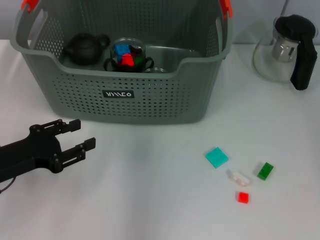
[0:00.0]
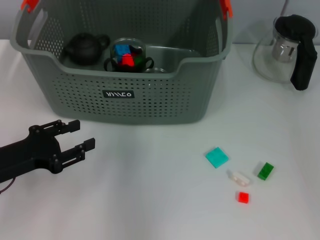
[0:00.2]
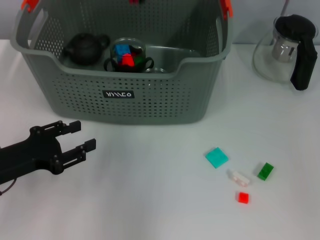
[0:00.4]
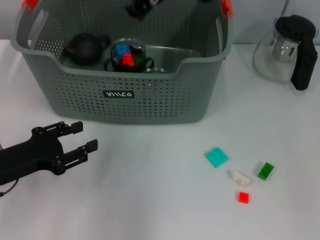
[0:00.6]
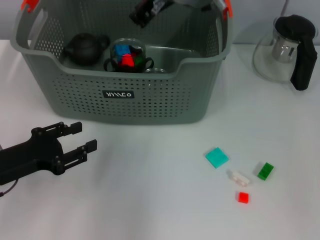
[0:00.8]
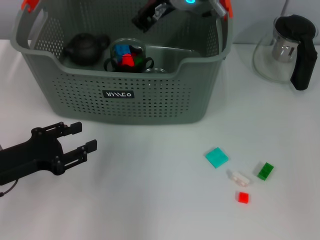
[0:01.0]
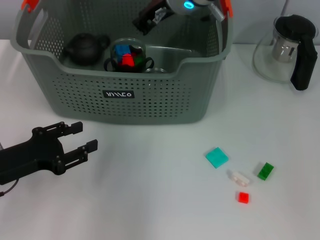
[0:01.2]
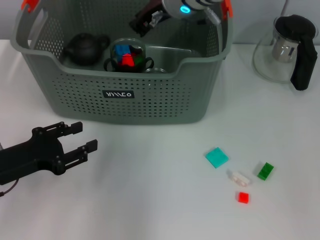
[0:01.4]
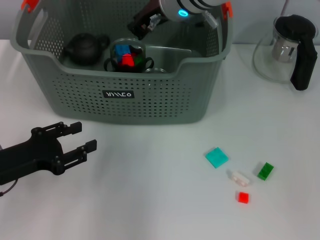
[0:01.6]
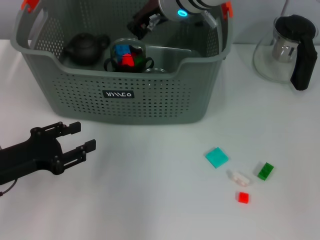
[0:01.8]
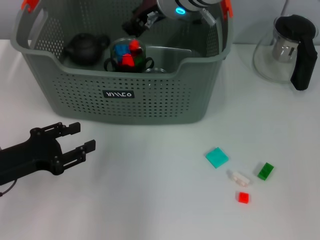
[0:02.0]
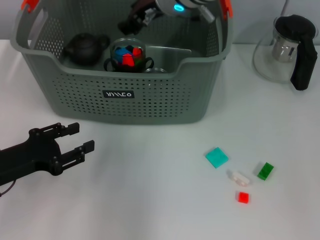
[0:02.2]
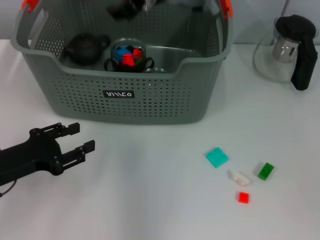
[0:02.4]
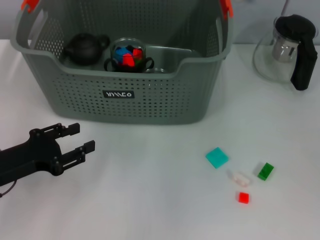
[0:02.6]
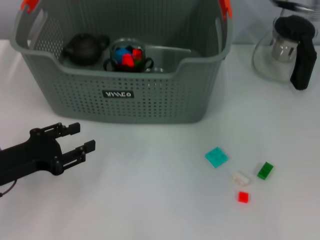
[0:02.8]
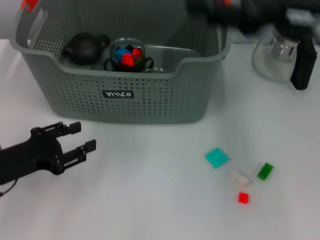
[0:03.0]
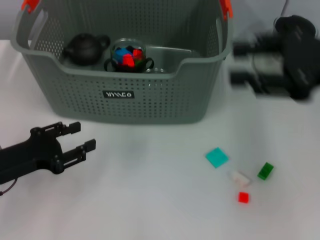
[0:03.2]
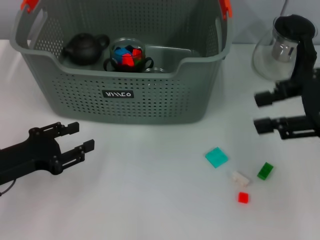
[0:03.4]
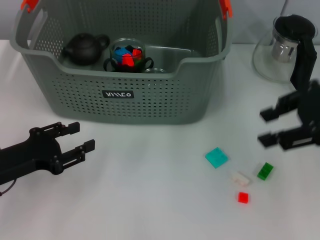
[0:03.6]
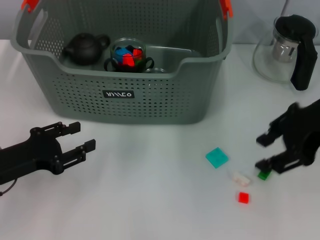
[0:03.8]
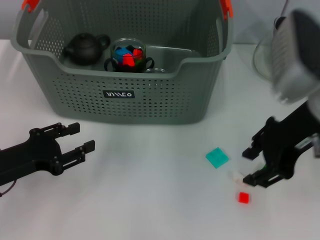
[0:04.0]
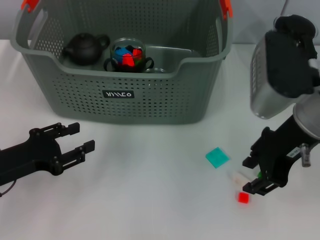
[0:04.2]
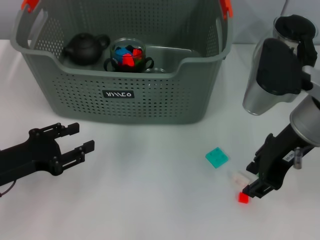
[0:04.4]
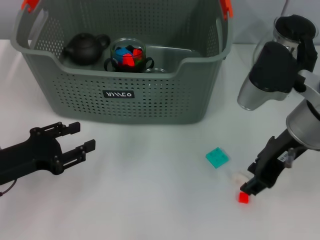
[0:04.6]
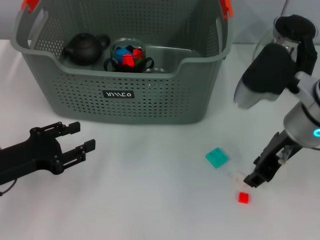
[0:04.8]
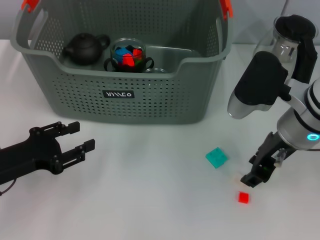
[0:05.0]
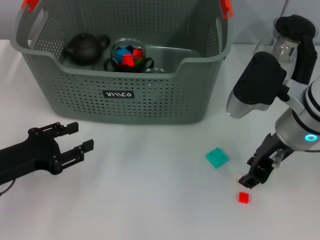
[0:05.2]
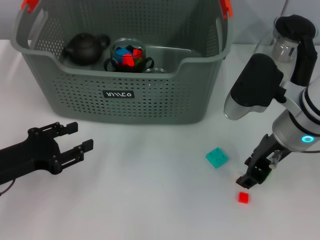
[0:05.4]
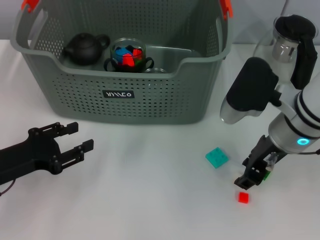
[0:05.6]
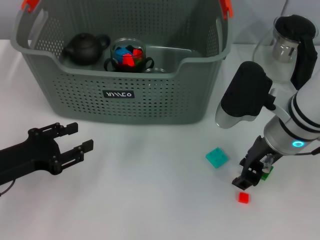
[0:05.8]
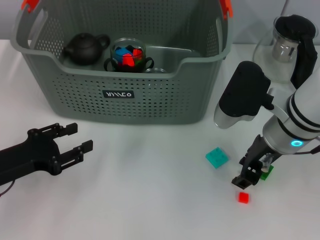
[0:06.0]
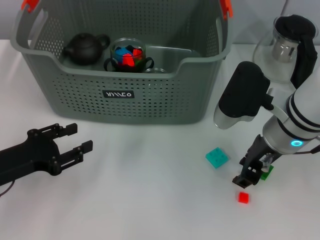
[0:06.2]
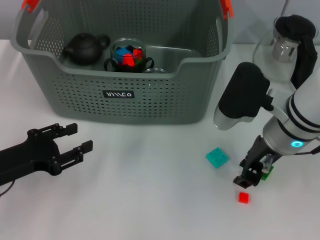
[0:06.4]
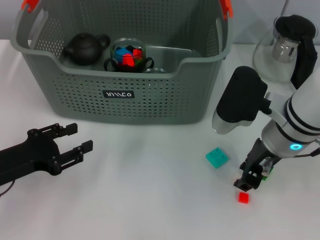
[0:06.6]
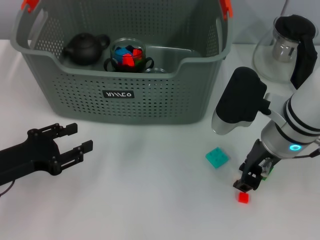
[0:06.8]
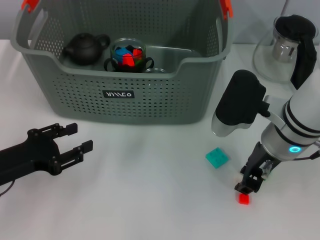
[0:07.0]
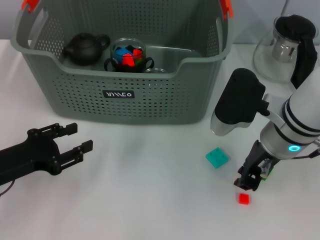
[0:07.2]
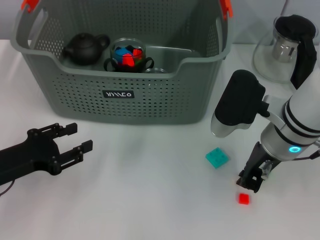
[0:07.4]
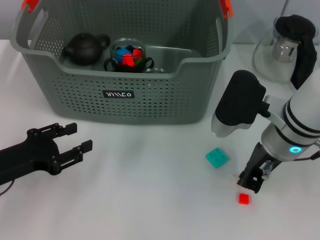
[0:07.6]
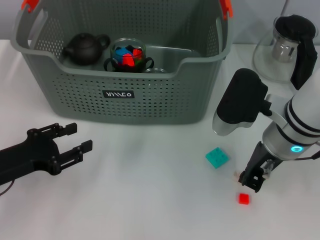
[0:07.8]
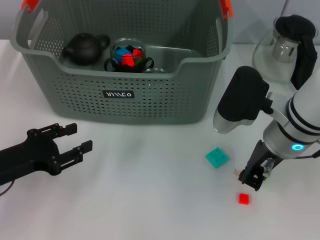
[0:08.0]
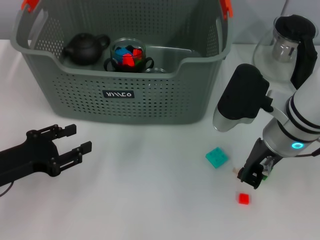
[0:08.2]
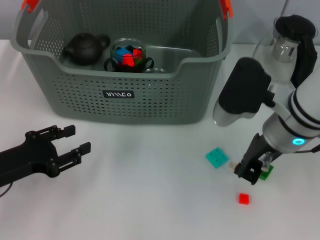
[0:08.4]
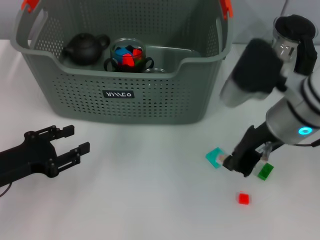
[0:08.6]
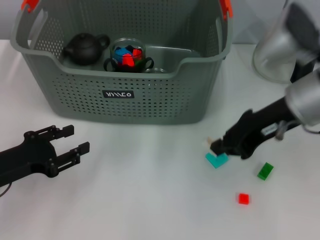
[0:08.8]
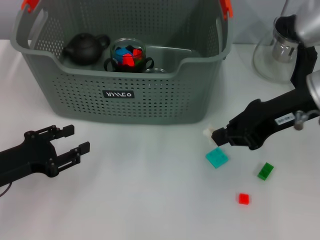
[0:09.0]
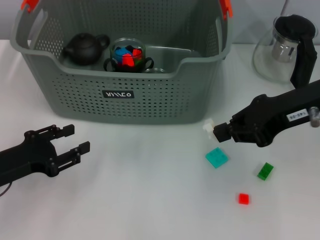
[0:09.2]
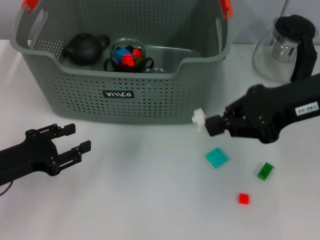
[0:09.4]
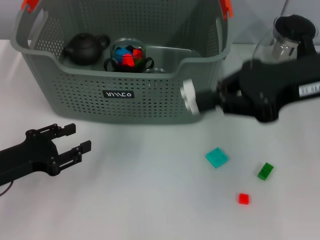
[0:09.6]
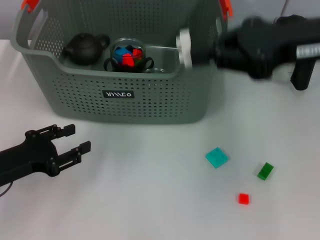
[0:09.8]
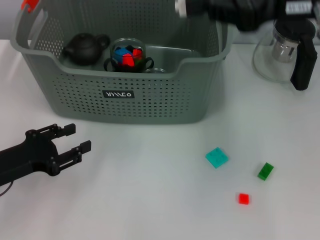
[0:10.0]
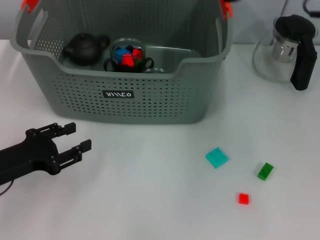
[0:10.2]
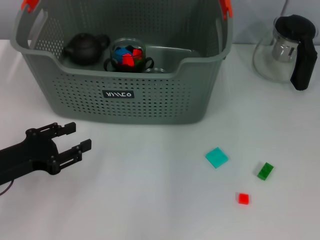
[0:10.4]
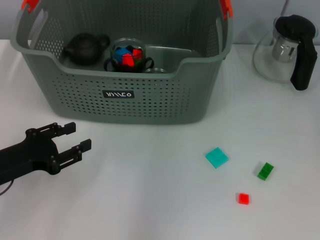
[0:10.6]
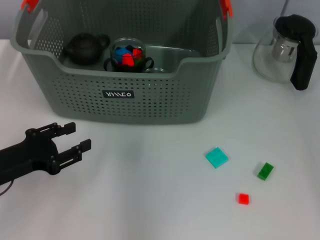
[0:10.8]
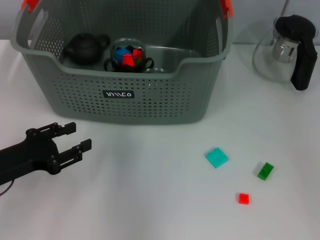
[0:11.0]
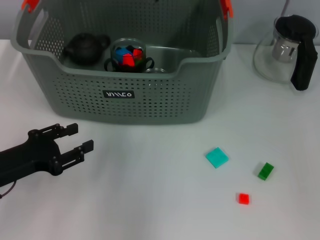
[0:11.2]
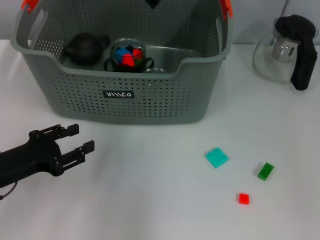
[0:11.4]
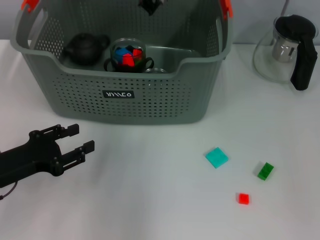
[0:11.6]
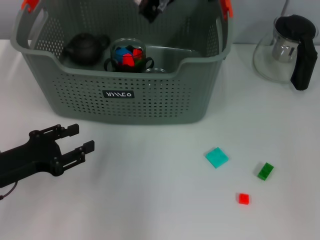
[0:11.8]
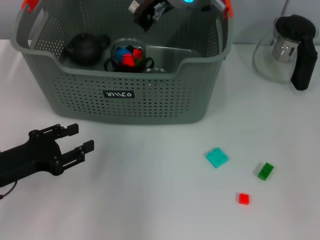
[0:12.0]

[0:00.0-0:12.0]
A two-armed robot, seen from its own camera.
Task of the whole recording: pick up the teacup on the table and place it into the storage bin, pick up the block on the table and place it into the storage bin.
Step, 0.0 to 2.0 s: Place the orange block in the storage box with right gripper.
Step, 2.2 to 7.6 s: Grasp the white block with right gripper.
0.0 to 1.6 s: The right gripper is displaced downward and to the left by some 15 cm.
1.6 to 3.0 s: The right gripper travels to the right and backward by approximately 25 cm, and opens its fingers.
3.0 to 4.4 s: The right gripper shifts about 5 cm downward.
4.4 to 6.0 s: The right gripper moves downward, roughly 5 cm.
6.0 to 7.6 s: The right gripper closes up.
7.6 to 9.0 s: The right gripper is displaced upward and to the right by about 10 cm.
9.0 to 10.4 s: The right gripper shifts about 10 cm upward and forward.
10.4 to 12.0 s: The right gripper shifts some 15 cm to the left and downward.

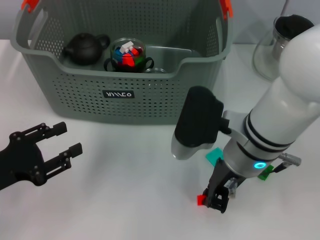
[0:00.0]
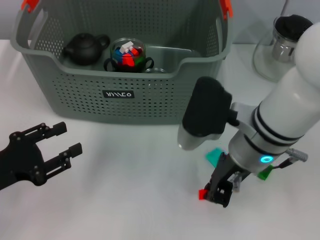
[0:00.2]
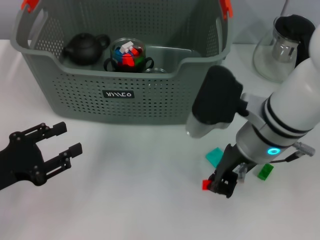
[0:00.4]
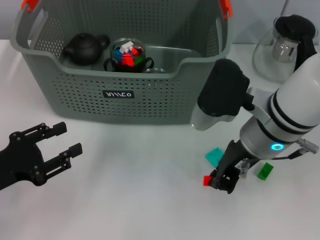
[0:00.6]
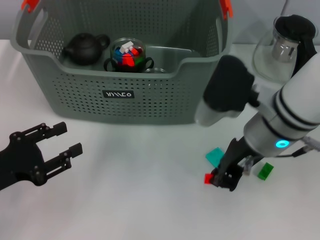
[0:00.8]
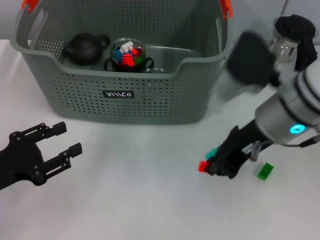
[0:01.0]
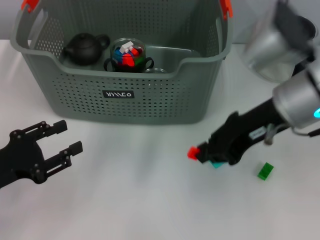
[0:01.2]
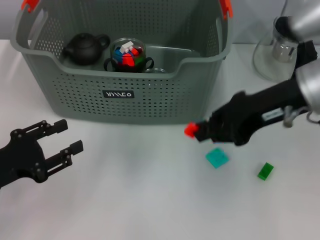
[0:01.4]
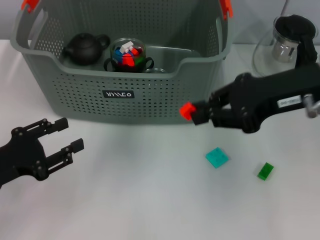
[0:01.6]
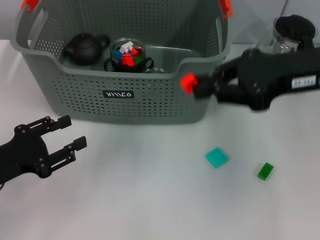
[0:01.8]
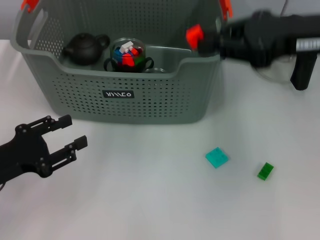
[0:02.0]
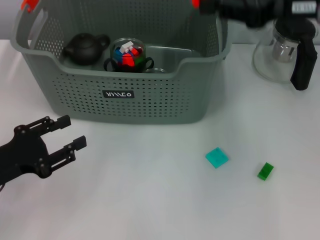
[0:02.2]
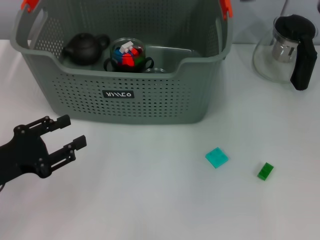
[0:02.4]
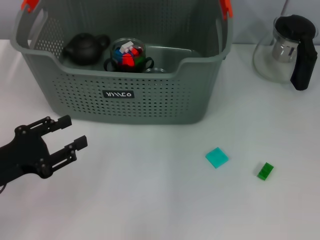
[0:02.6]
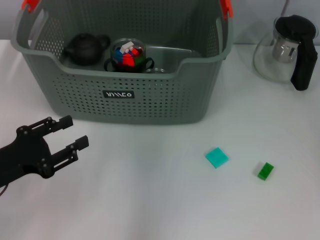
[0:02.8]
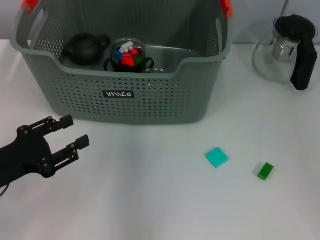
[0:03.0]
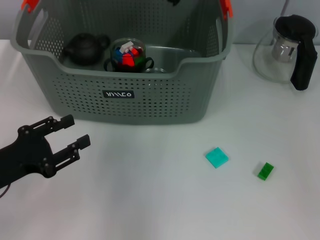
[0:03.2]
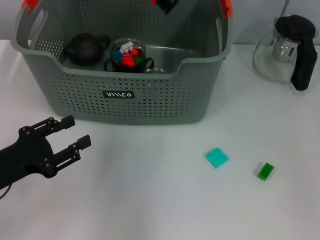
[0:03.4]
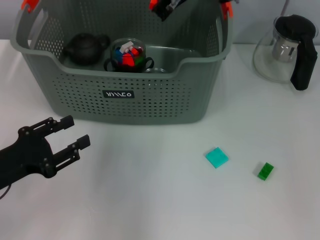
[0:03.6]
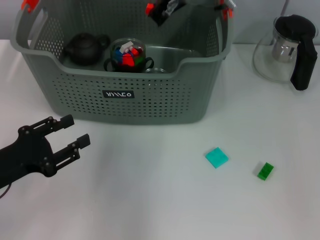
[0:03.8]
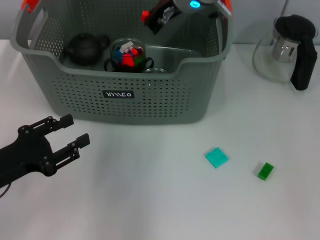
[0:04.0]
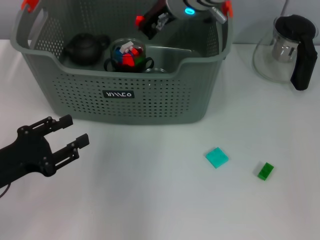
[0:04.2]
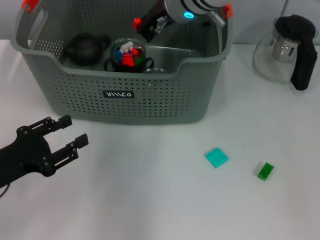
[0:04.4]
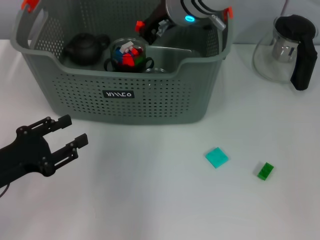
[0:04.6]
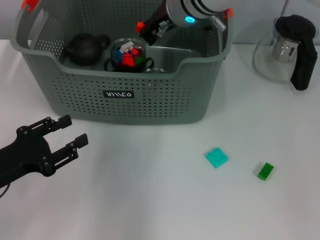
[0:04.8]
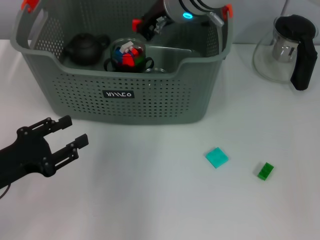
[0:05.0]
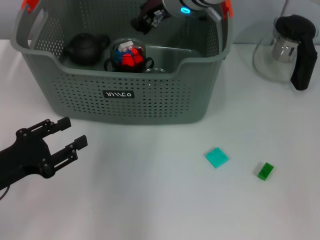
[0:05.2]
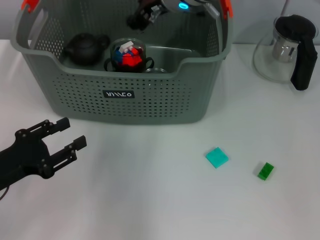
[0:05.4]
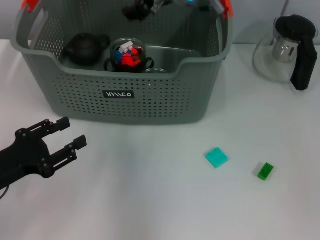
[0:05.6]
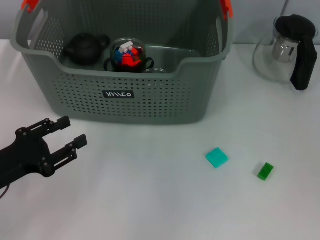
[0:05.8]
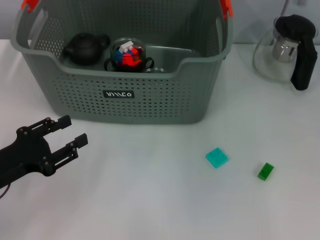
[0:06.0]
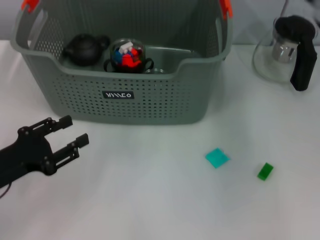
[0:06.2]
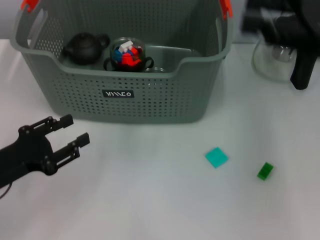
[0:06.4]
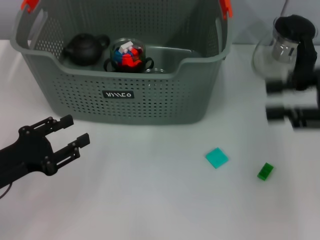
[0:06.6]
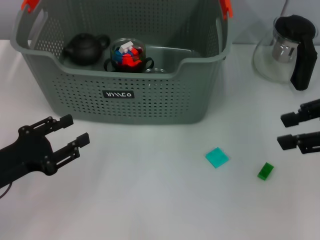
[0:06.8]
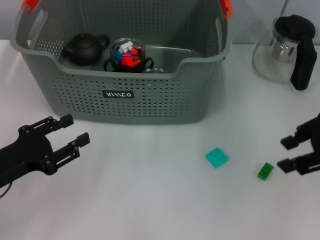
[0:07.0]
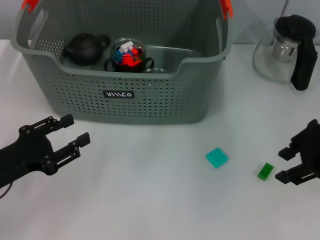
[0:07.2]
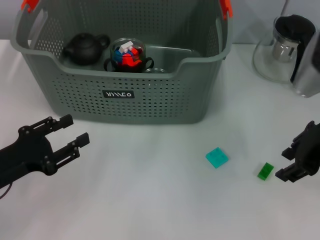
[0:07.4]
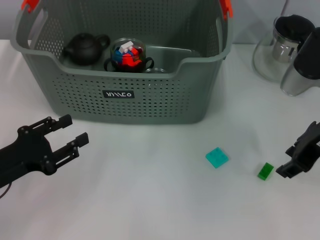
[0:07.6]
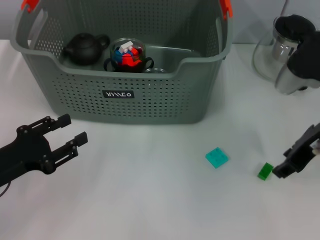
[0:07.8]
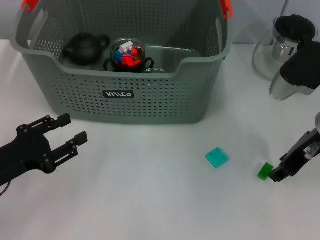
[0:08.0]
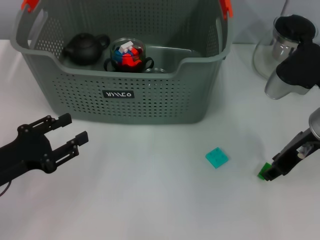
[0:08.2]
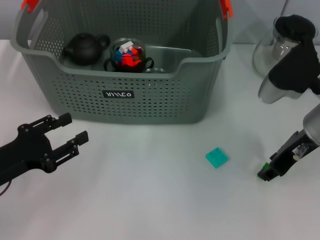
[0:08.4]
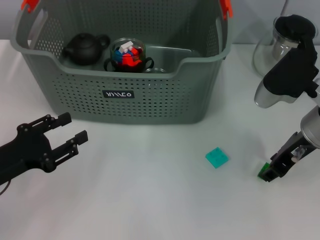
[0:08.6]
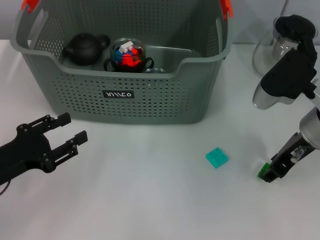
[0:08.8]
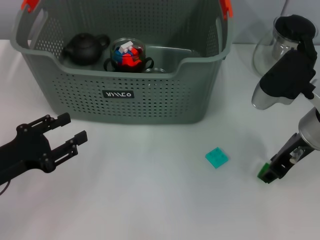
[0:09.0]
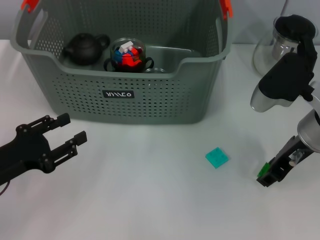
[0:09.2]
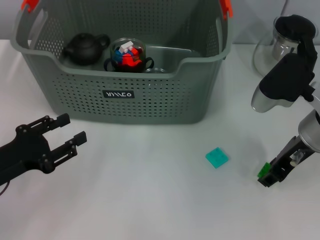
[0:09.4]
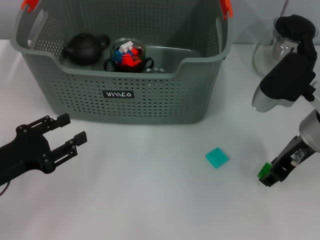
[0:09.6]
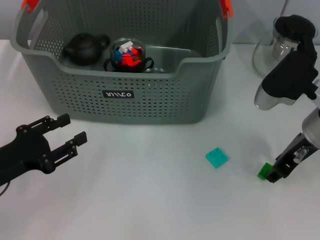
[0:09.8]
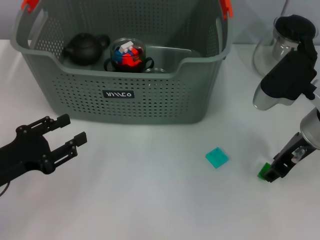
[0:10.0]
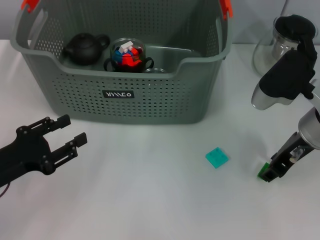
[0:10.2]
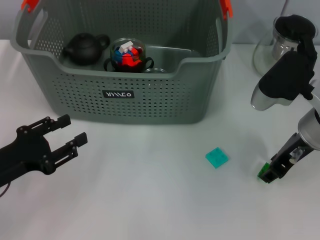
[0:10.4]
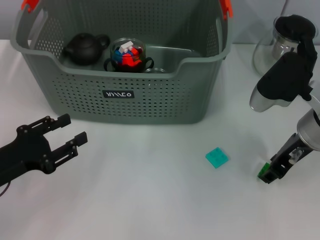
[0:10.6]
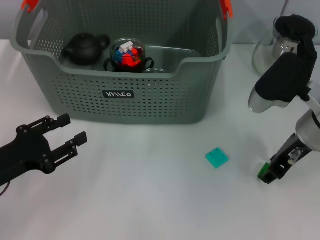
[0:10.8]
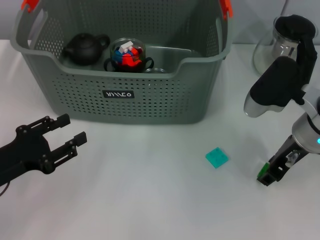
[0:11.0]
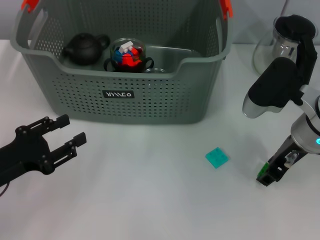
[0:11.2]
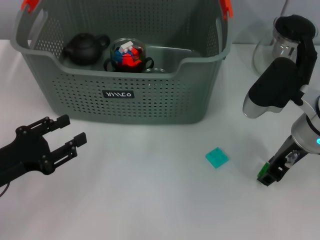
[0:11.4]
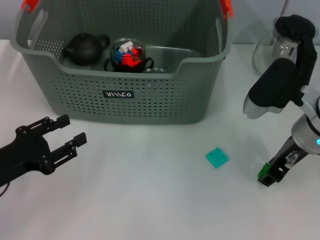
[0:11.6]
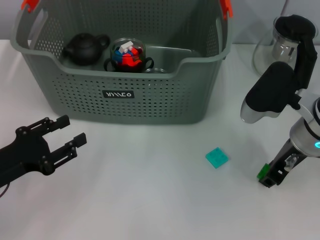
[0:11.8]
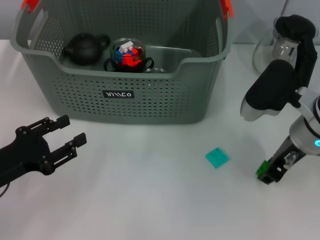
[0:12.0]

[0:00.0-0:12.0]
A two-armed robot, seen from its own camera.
Task of the whole recording: pick up the teacup on the table and place it into the storage bin, pick up the block on the table and place it into the storage bin.
Step, 0.0 to 5.2 s: Place the orange block in the storage box with right gripper.
Step, 5.4 to 11.6 s: Grasp the green block with right gripper.
0.0 to 1.6 s: The right gripper is displaced to the right and upward by about 15 cm.
1.6 to 3.0 s: The right gripper moves forward, to the left and upward, some 20 cm.
3.0 to 4.4 s: The right gripper shifts about 10 cm downward and to the left.
4.4 to 6.0 s: The right gripper travels to the right, upward and backward by some 15 cm, and opens.
6.0 to 7.6 s: The right gripper moves downward, to the right and backward, roughly 15 cm.
7.6 to 9.0 s: The right gripper moves some 5 cm.
9.0 to 10.4 s: Both grippers stay about where they are.
10.4 to 12.0 s: There are only small adjustments of the grippers.
